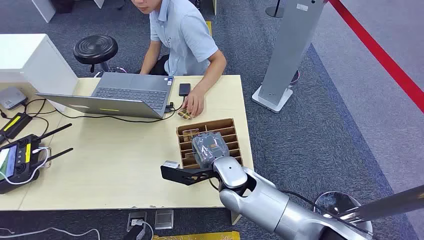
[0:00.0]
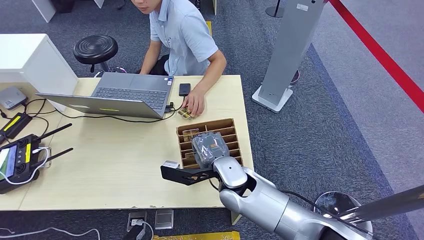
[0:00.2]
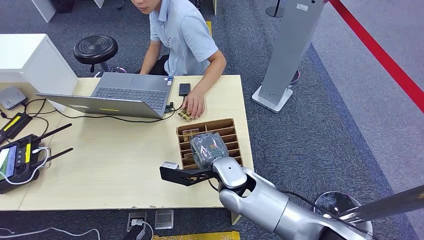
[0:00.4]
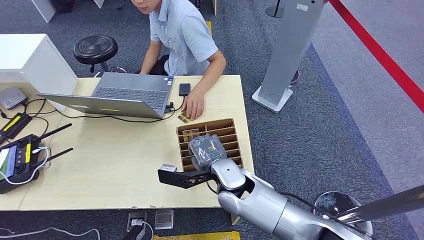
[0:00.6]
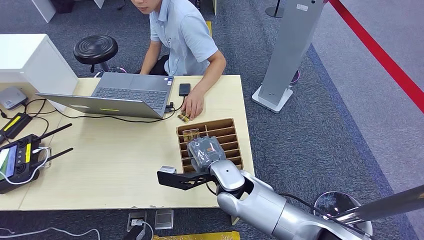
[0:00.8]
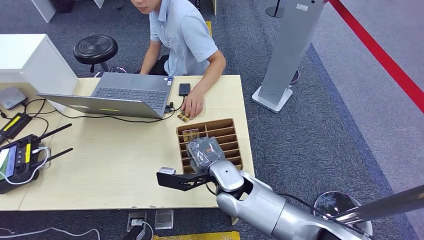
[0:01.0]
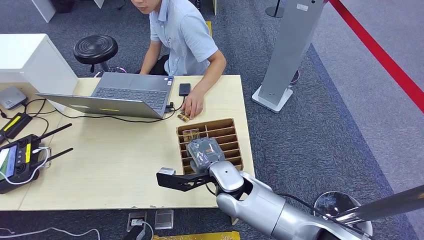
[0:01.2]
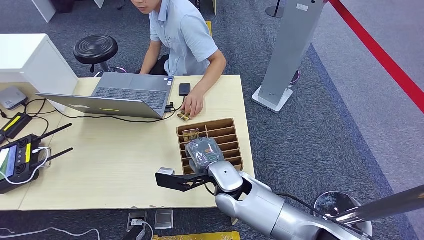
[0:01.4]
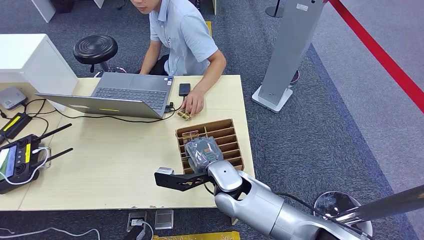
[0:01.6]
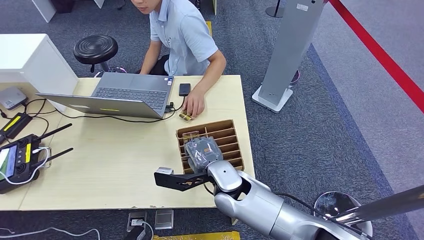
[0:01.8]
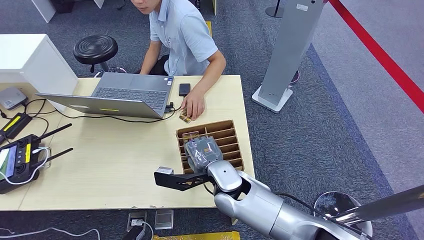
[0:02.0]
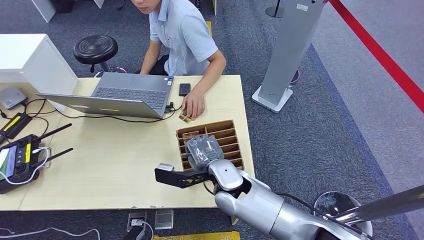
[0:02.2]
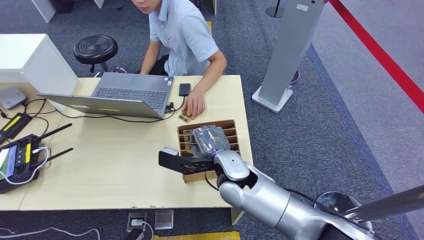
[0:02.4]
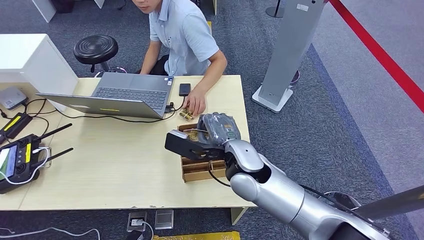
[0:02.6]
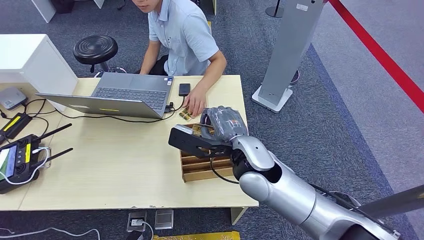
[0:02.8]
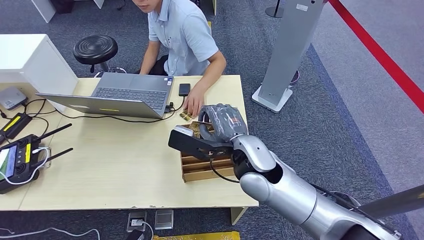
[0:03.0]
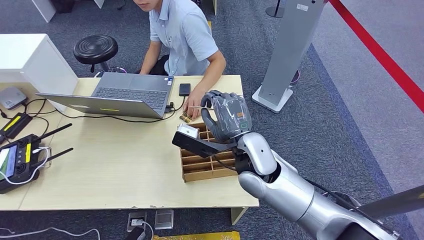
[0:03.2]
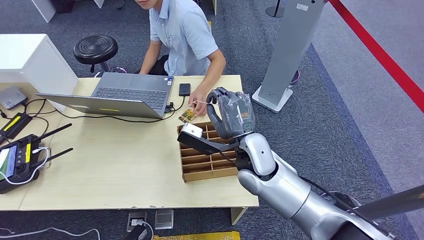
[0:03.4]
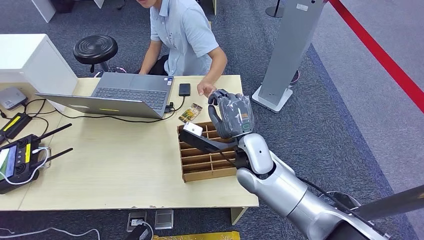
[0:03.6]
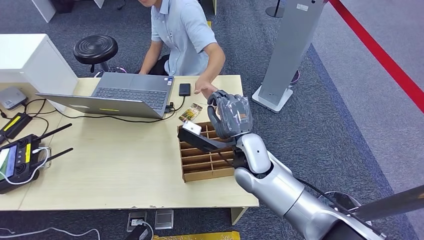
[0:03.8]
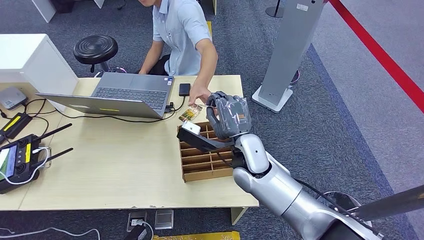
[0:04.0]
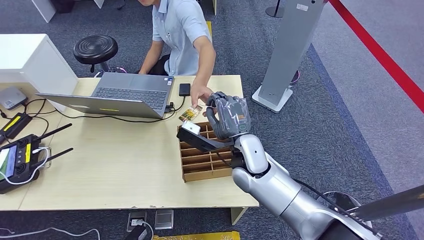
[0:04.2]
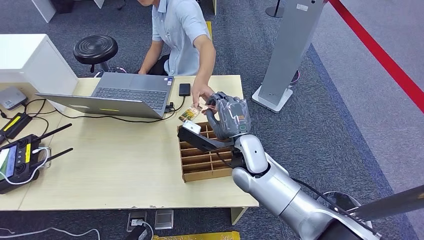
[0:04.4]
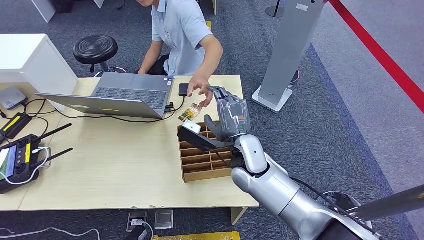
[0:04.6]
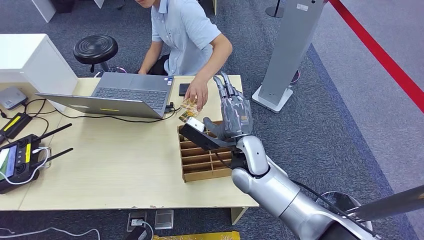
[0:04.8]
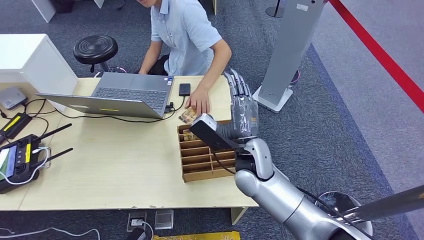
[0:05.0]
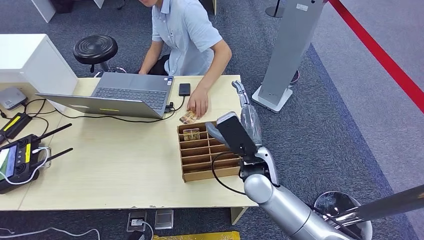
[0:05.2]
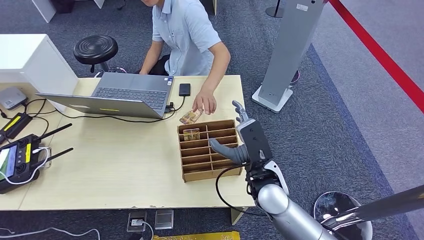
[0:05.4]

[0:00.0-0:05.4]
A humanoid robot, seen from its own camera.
Step, 0:00.0 to 0:02.8: Pick up the key card from the card box.
Step, 0:03.2 to 0:05.4: Hand the key card to the target.
0:01.4 to 0:02.8: The right hand goes some 10 cm upward.
0:02.8 to 0:04.0: The right hand heads downward, covering some 5 cm.
0:04.0 to 0:05.4: The right hand shifts some 5 cm backward.
